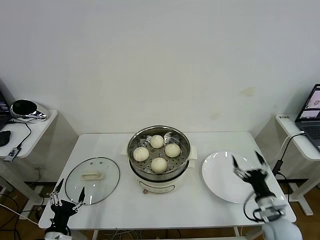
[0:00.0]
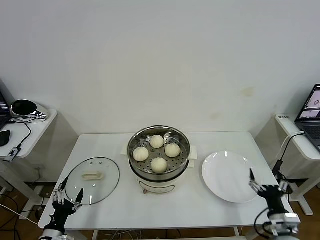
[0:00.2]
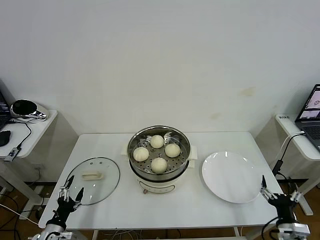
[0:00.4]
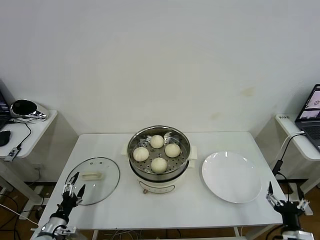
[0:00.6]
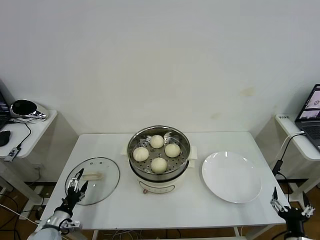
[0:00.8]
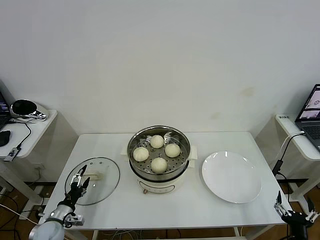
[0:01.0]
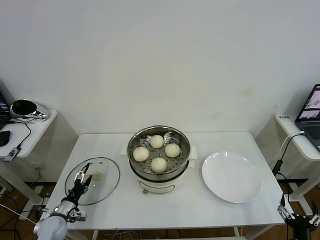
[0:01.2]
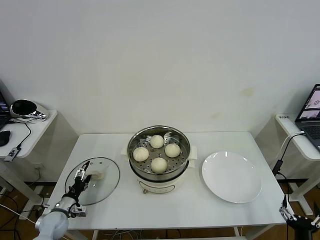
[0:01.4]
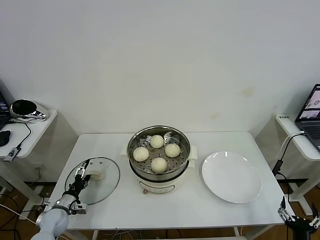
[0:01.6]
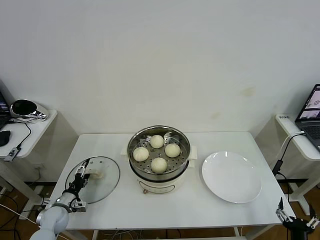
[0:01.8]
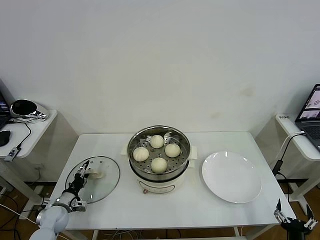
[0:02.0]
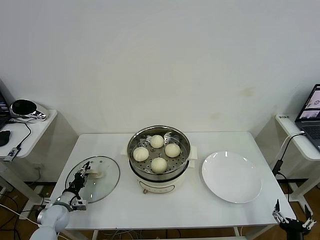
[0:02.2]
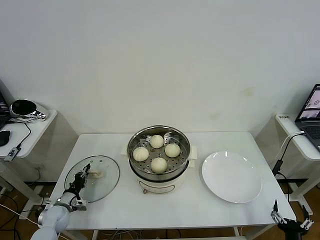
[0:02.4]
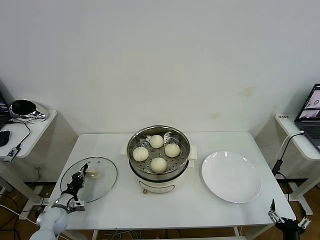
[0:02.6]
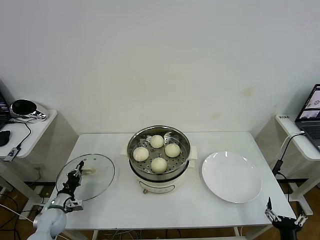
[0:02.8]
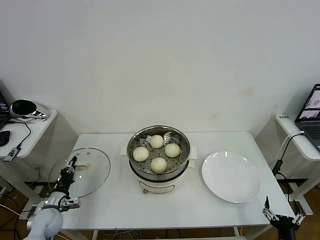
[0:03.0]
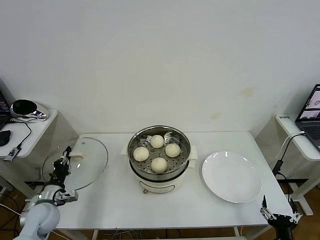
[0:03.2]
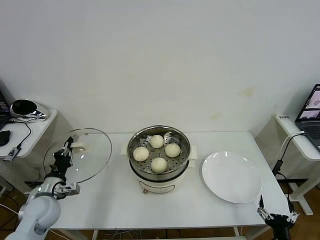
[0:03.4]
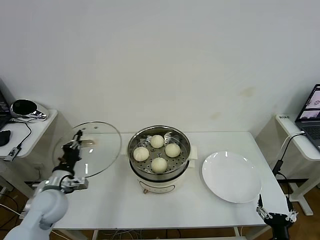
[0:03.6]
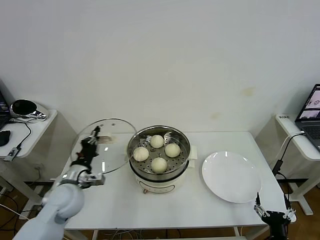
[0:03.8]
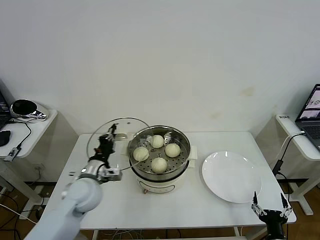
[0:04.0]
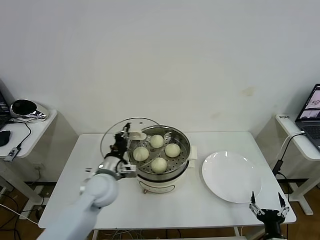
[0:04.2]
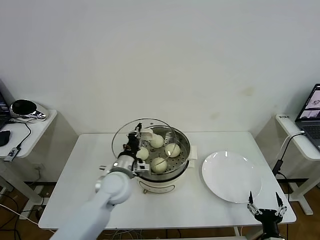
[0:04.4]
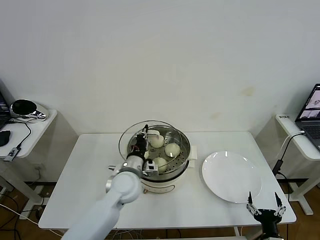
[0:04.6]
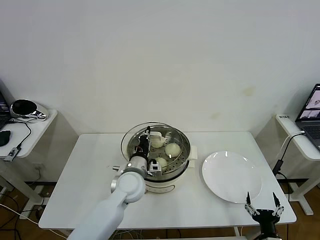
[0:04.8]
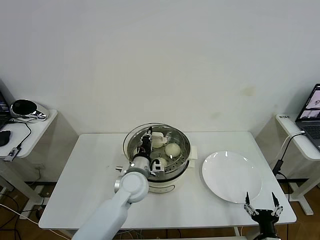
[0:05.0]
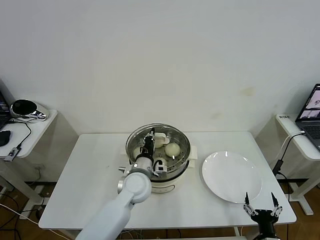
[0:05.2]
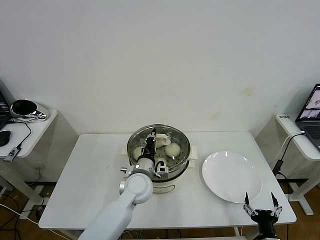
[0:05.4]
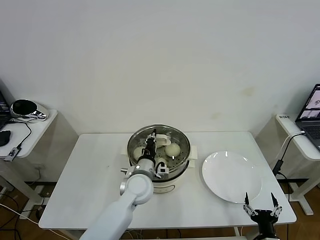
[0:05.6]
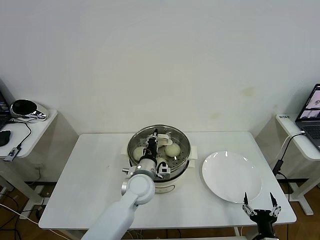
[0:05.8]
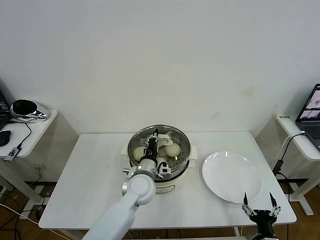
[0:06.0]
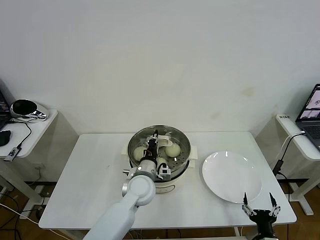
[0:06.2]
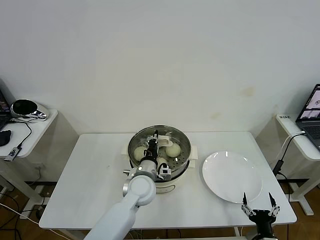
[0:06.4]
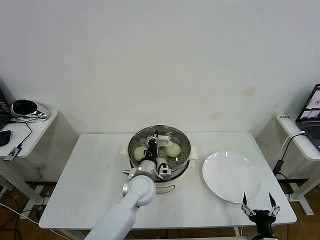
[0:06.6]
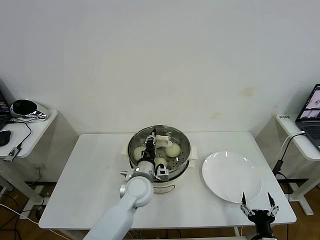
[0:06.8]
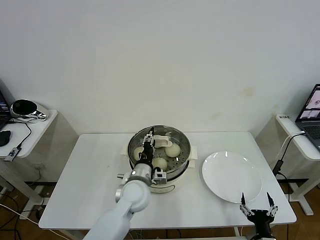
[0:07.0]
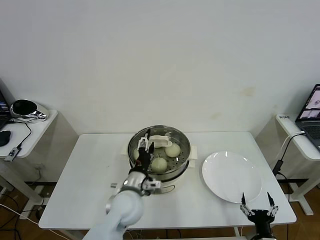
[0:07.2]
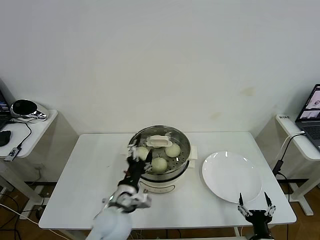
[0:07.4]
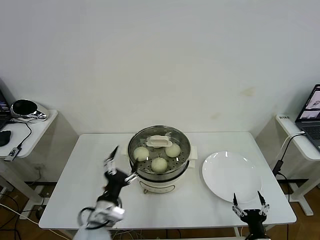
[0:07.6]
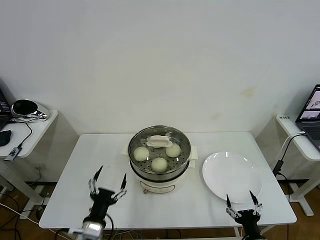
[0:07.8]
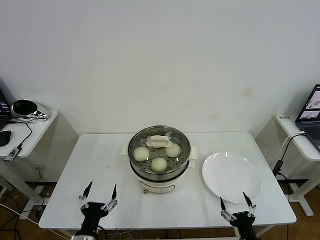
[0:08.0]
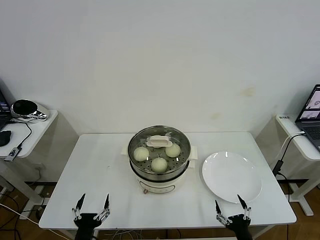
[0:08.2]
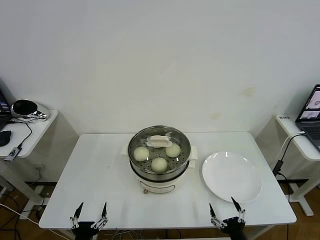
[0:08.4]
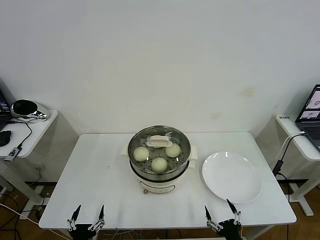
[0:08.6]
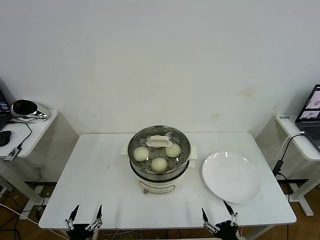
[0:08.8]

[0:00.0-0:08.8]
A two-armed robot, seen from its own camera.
Task of the whole recording: take steamed baozi put them in steamer then cover it.
Step, 0:00.0 to 0:02.6: Grasp the pot lid with left gripper.
Step, 0:02.8 to 0:07.2: Place the pot lid on the steamer with left gripper.
0:00.0 to 0:01.4: The left gripper is displaced forward by roughly 15 cm; the right gripper travels backward by approximately 15 cm.
0:01.4 to 0:03.0: The left gripper closes.
0:03.0 to 0:04.4: The left gripper moves to the right and upward, approximately 30 cm.
0:04.4 to 0:05.8: The left gripper travels to the right by some 10 cm.
0:05.8 to 0:07.4: The left gripper moves backward, approximately 10 cm, and opens.
0:07.4 to 0:08.8: The left gripper shifts some 30 cm backward, to the left and downward. The right gripper travels to the left by about 5 cm.
